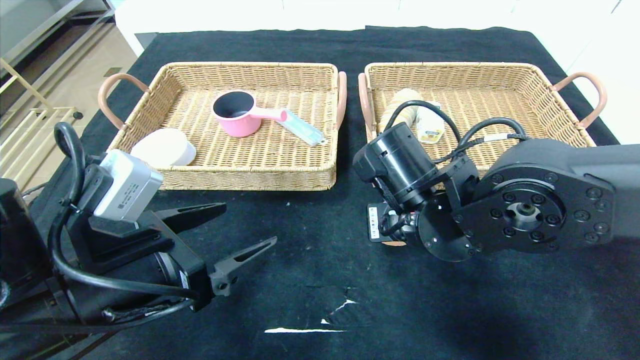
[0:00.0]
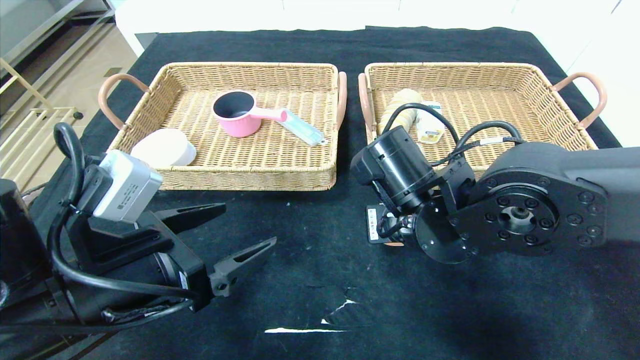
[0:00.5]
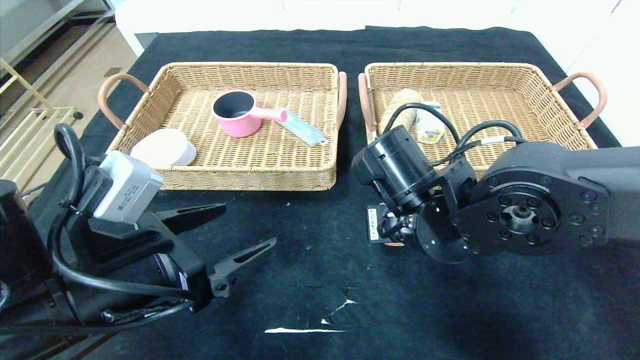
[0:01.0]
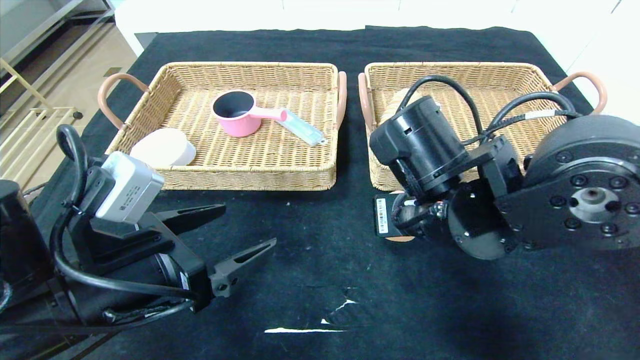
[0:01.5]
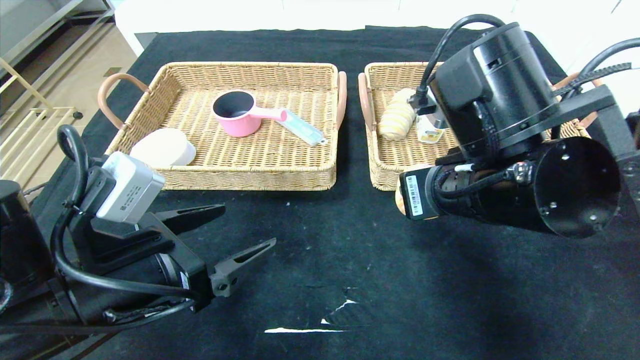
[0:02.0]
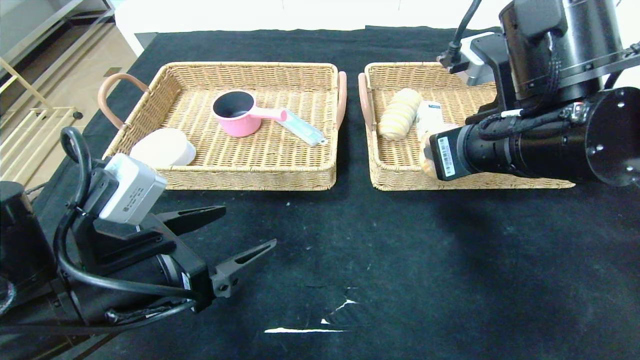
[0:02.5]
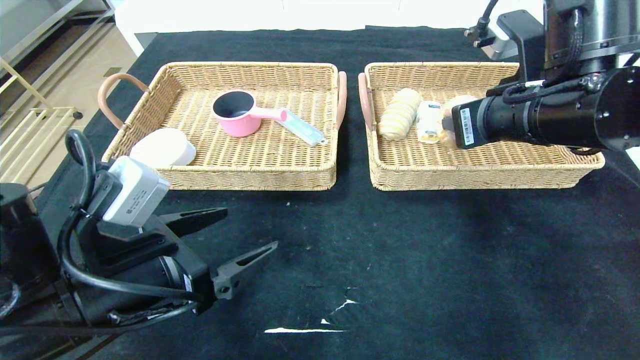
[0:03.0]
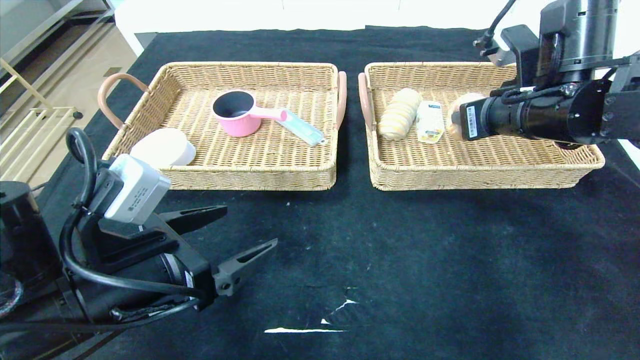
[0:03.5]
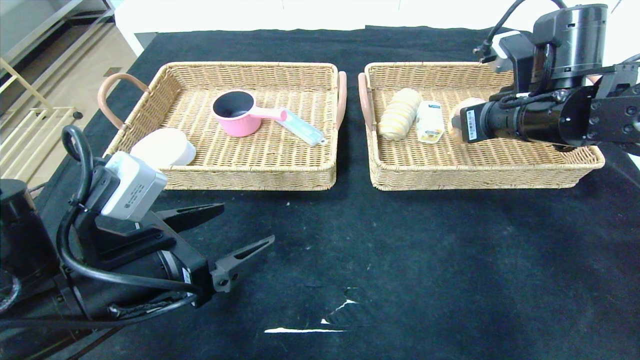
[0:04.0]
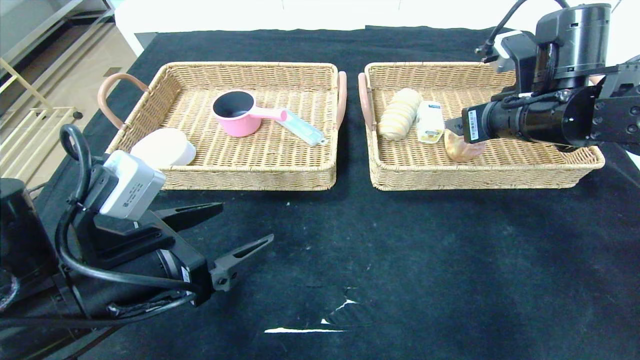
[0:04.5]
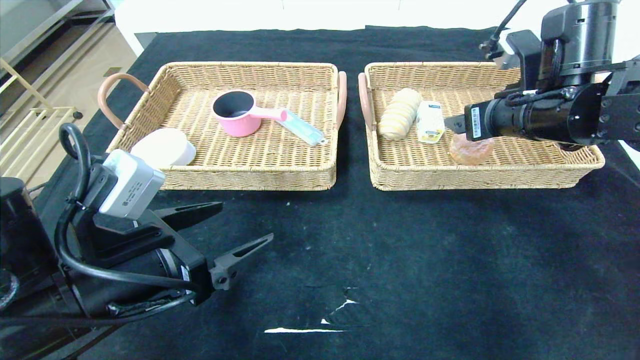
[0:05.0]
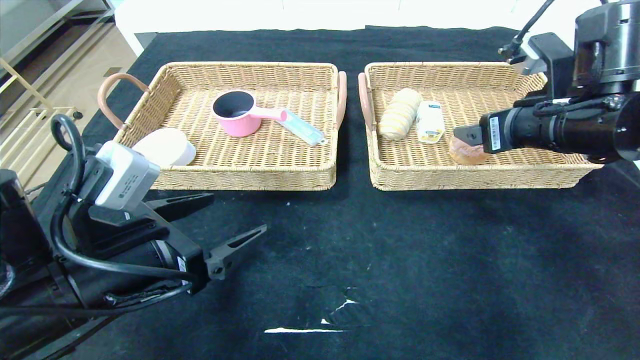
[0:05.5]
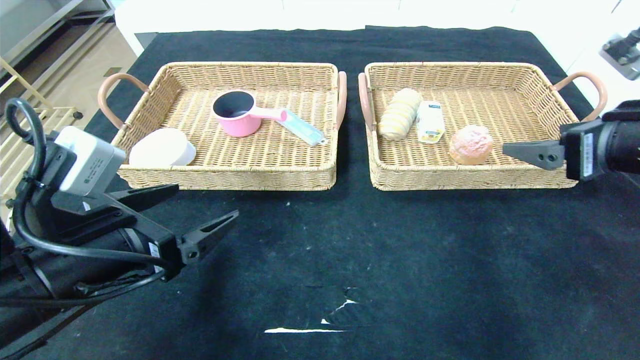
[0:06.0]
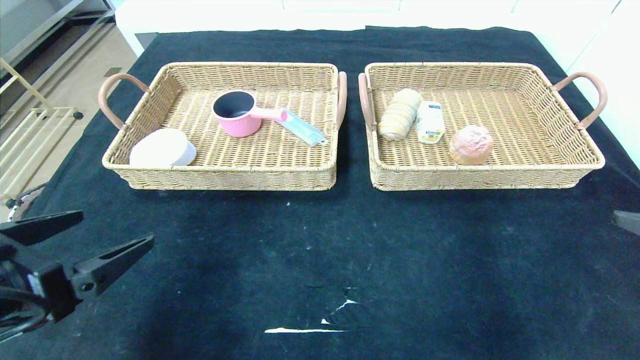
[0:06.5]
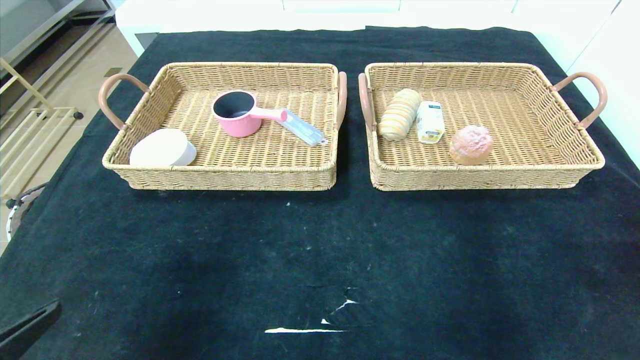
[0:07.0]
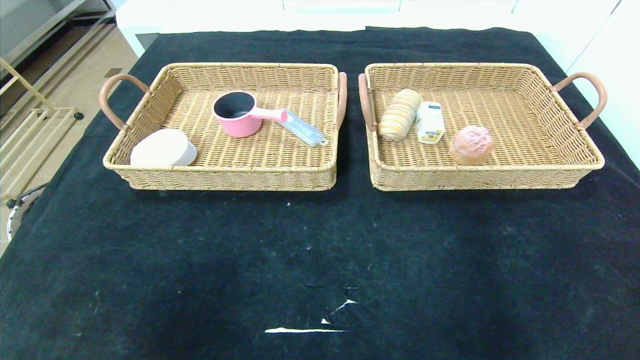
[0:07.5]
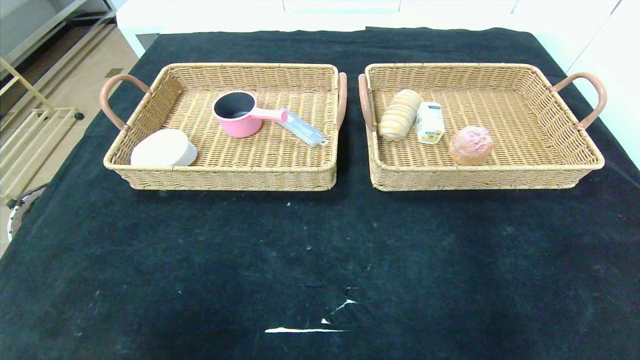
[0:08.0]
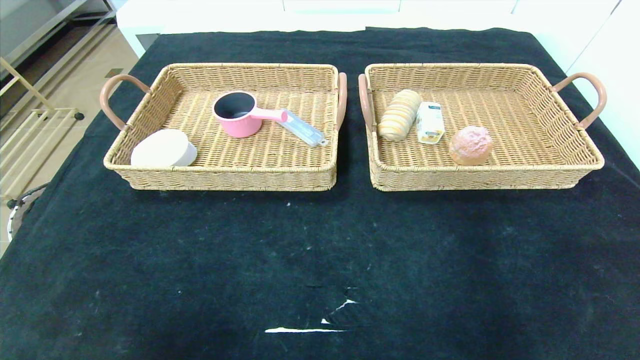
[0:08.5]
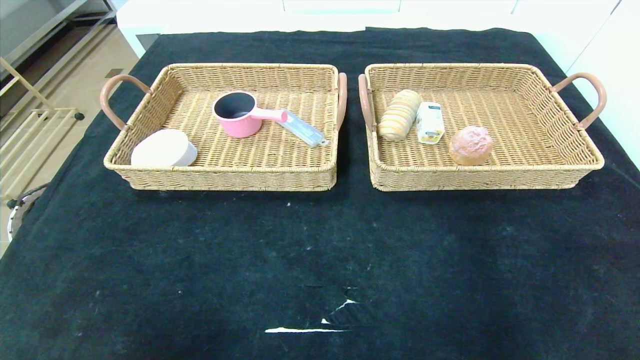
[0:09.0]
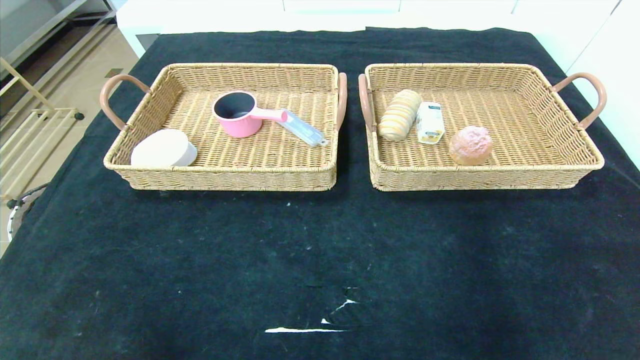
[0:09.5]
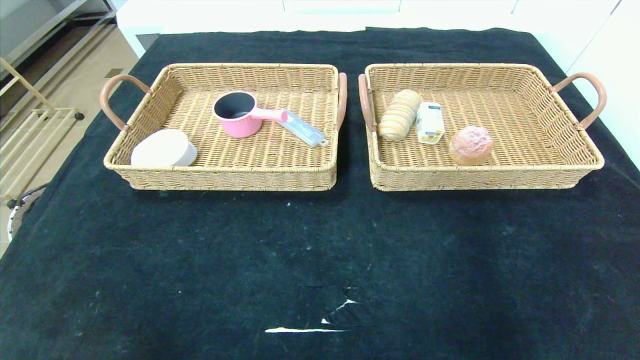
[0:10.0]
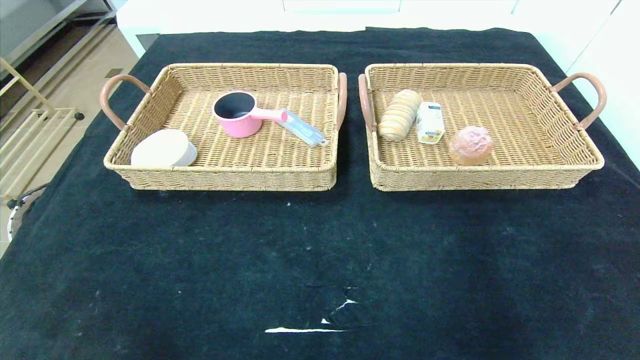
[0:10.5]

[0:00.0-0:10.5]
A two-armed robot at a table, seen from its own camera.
Step, 0:00.0 to 0:04.5: Grasp the round bread and put it in the right basket.
0:00.0 to 0:02.0: The right gripper heads upward, covering some 5 cm.
0:02.0 to 0:04.0: The right gripper moves forward and to the right, some 15 cm.
0:04.0 to 0:06.5: The left gripper heads to the left and backward, covering approximately 10 cm. Meanwhile the right gripper moves backward and to the right, about 25 cm, and opens its fingers.
0:06.5 to 0:08.5: The left gripper travels backward by some 20 cm; the right gripper goes some 25 cm backward and downward.
